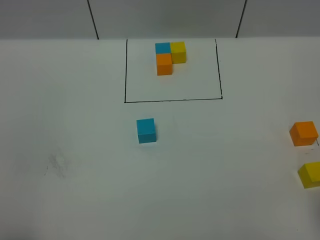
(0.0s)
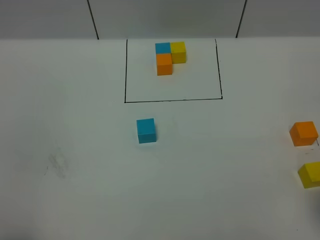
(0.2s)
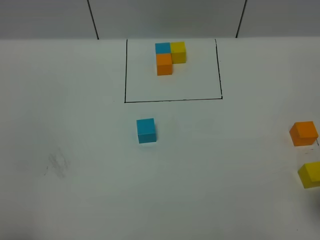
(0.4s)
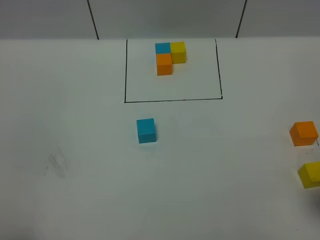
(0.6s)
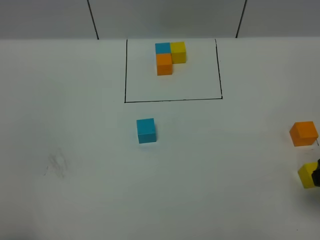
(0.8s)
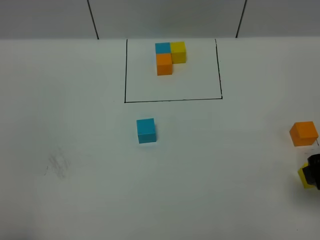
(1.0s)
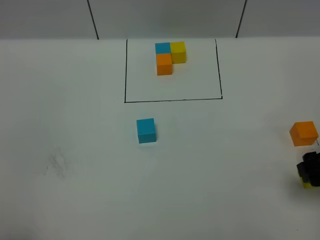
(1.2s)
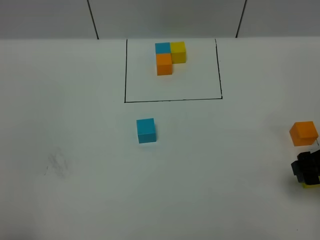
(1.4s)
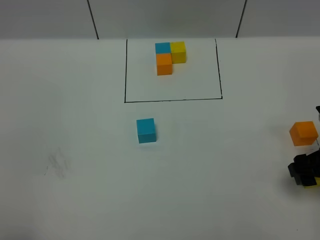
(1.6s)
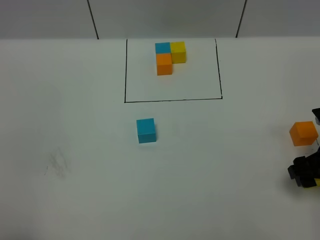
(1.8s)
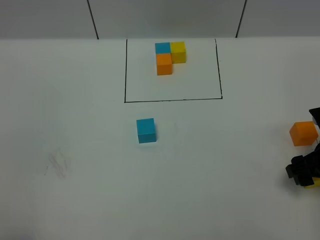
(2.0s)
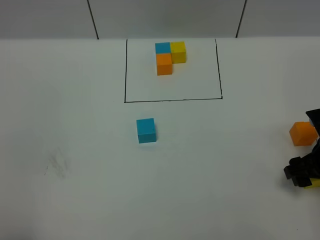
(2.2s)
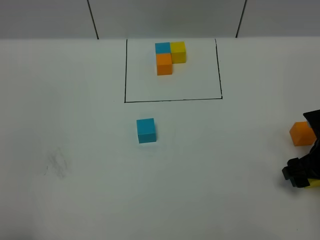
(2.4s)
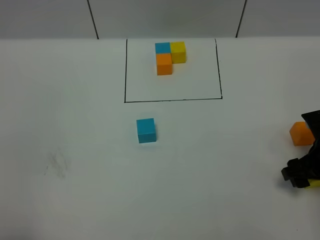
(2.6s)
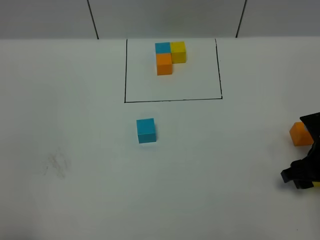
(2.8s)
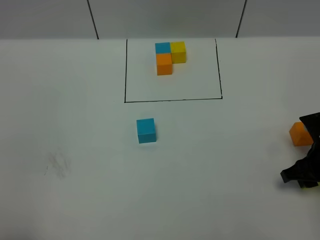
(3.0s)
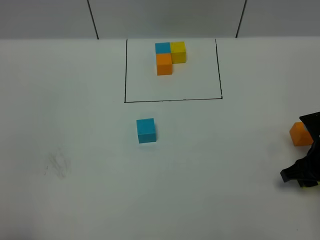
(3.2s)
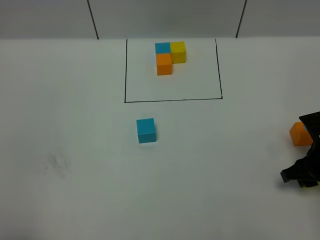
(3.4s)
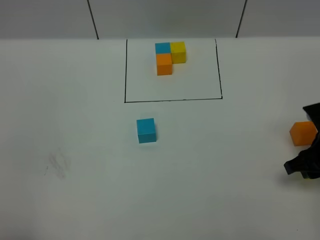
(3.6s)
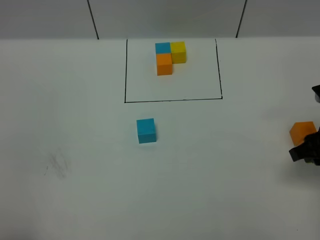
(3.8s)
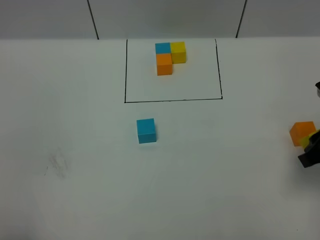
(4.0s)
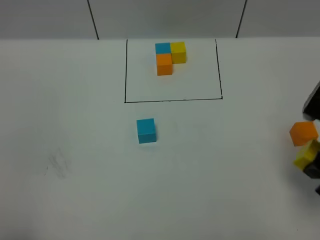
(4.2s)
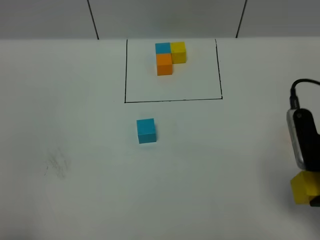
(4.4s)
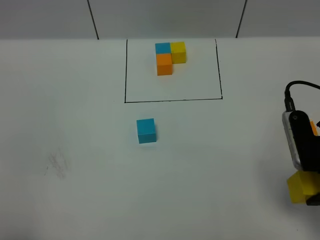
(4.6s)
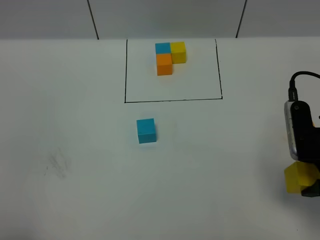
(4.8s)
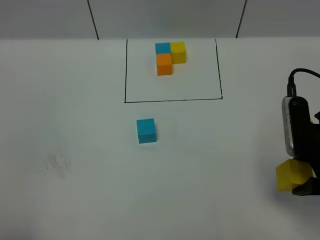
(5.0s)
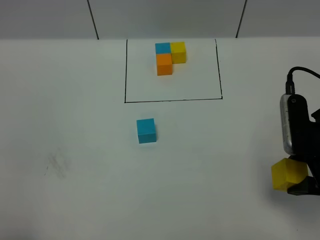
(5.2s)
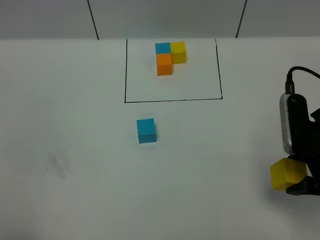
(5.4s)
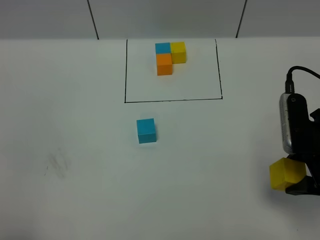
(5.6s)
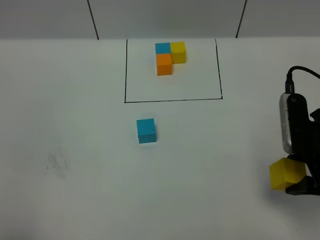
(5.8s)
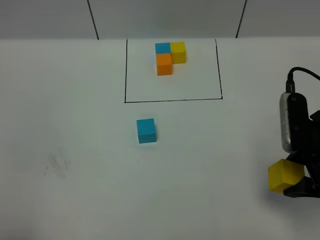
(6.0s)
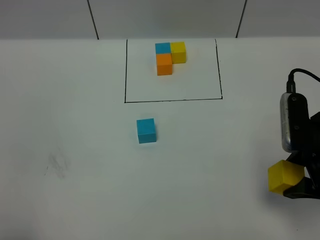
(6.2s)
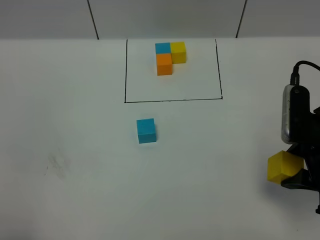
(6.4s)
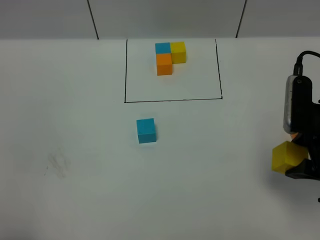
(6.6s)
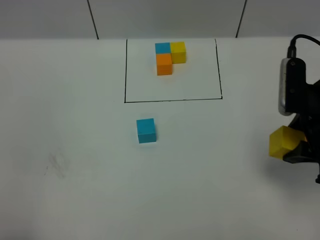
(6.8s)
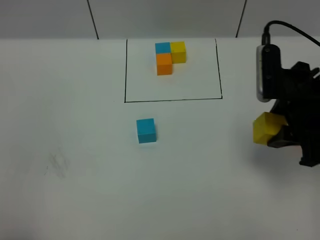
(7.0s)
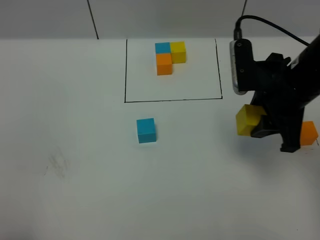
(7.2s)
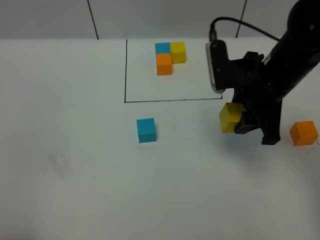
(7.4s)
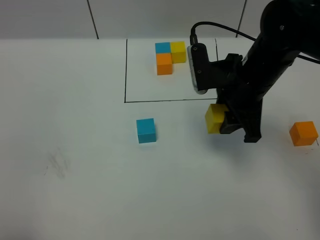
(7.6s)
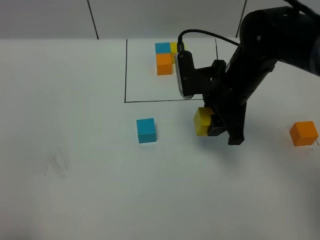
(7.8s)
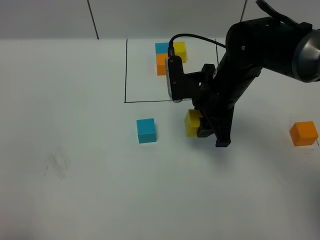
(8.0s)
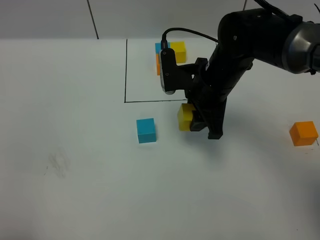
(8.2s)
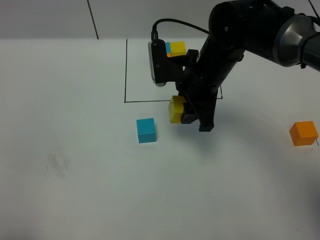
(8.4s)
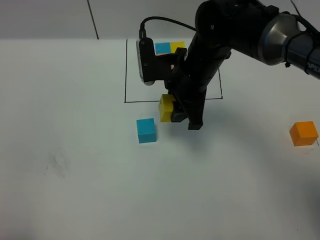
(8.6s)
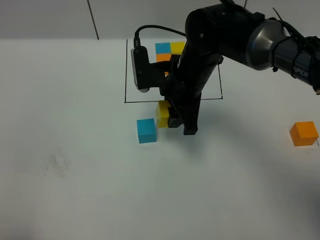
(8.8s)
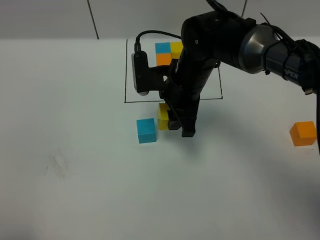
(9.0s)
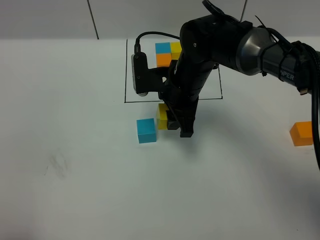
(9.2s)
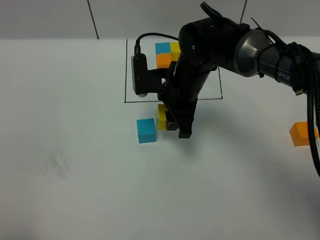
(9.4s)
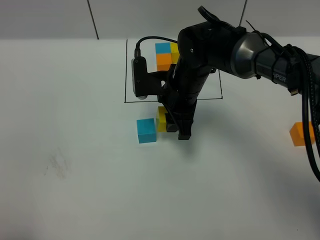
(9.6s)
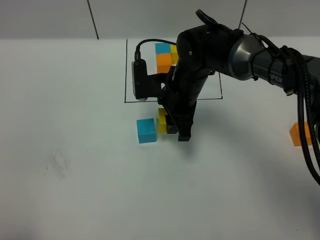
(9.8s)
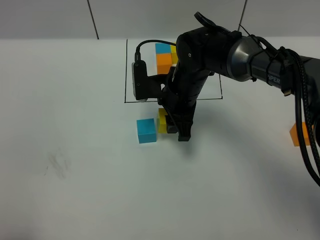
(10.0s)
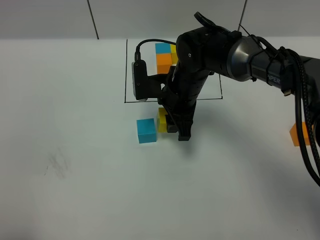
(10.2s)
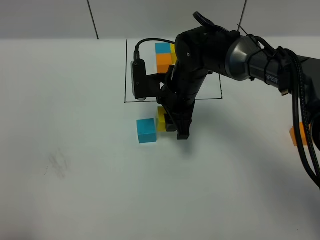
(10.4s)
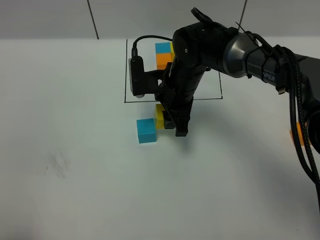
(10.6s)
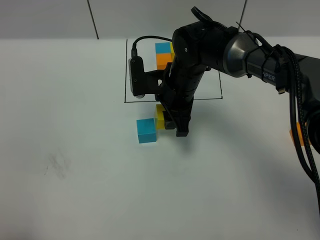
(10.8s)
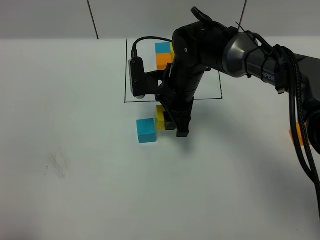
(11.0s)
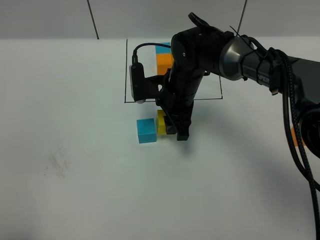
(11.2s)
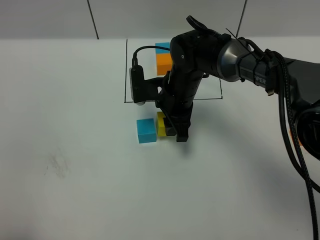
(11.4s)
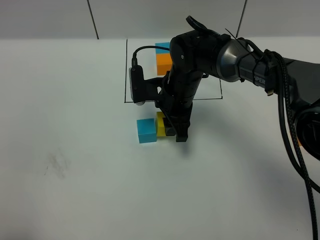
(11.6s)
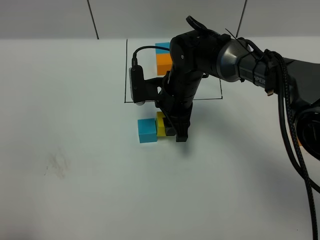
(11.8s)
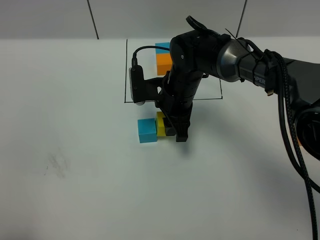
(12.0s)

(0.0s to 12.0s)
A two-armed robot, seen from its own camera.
Task of the whole recording: According to the building block template in front, assemble the scattered blocks together.
0.0s - 1.6s: The right gripper shifts about 15 cm downward and forward.
1.6s - 3.0s: The right gripper shifts by approximately 5 cm, and closes its fingers.
3.0s - 4.4s: The right gripper moves upward and backward, some 15 cm.
4.4s - 6.0s: There are only small adjustments of the grippers.
6.0s - 7.6s: The right gripper travels forward and to the left by approximately 15 cm.
7.6s - 9.0s: The right gripper is displaced to the left by approximately 10 cm.
9.0s - 12.0s: The grippers stay close to where they were, moving slightly.

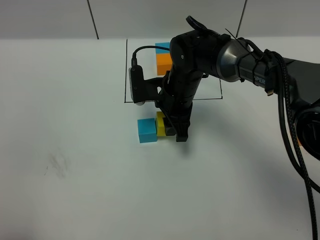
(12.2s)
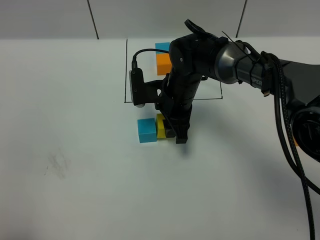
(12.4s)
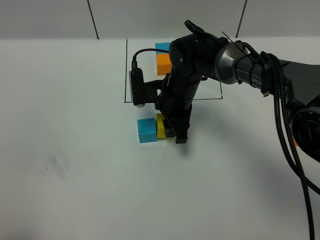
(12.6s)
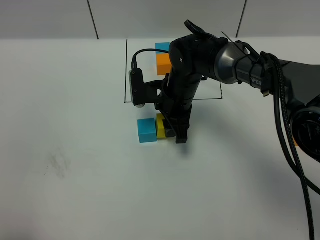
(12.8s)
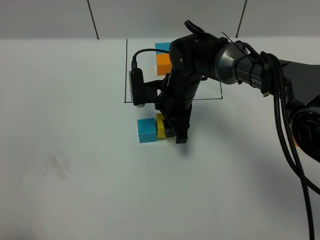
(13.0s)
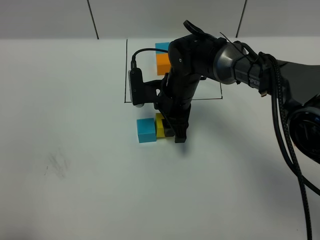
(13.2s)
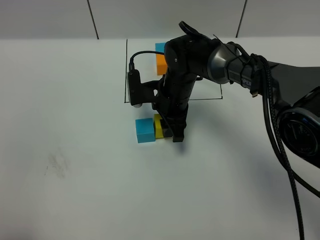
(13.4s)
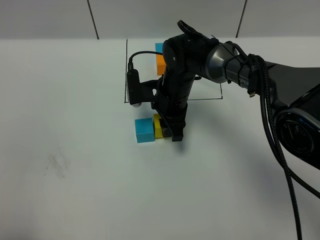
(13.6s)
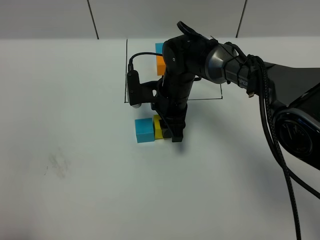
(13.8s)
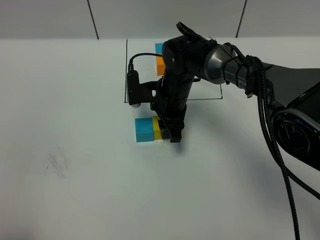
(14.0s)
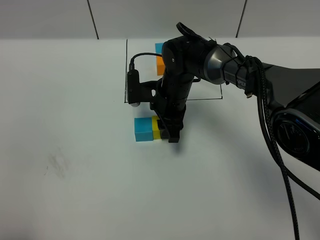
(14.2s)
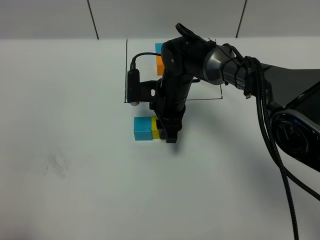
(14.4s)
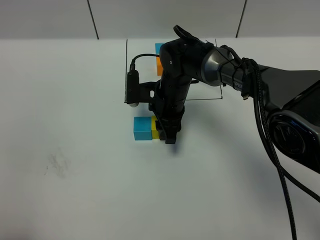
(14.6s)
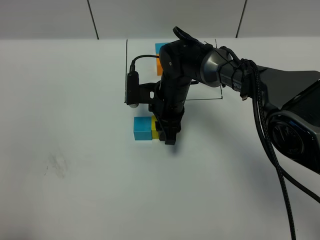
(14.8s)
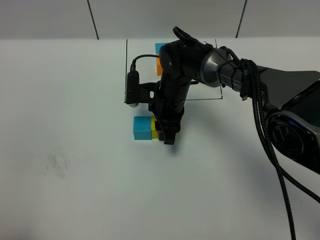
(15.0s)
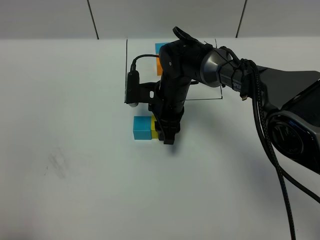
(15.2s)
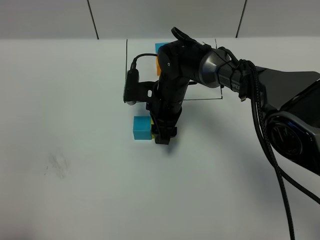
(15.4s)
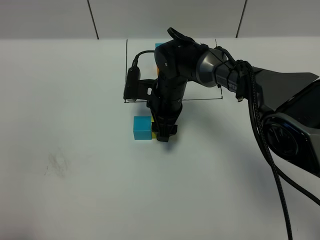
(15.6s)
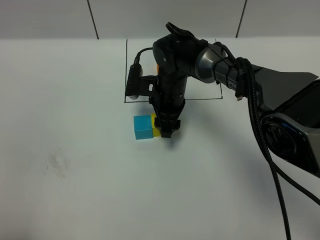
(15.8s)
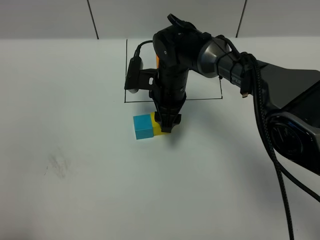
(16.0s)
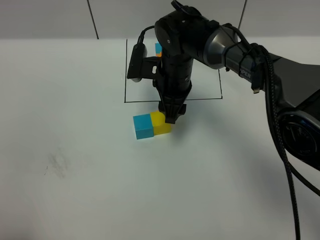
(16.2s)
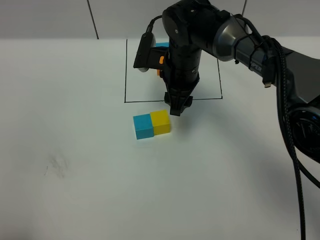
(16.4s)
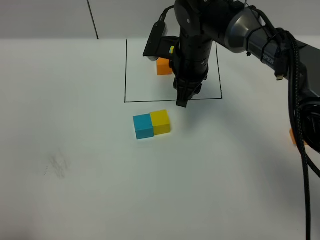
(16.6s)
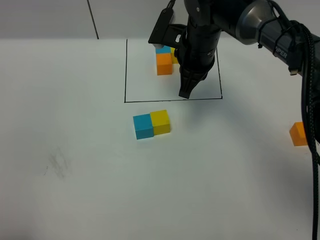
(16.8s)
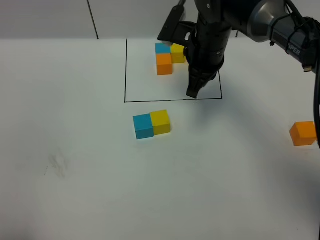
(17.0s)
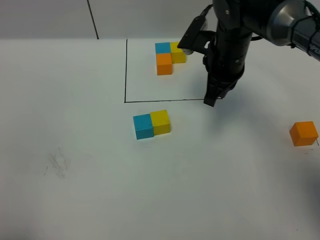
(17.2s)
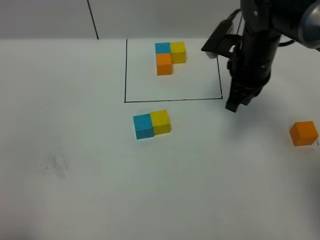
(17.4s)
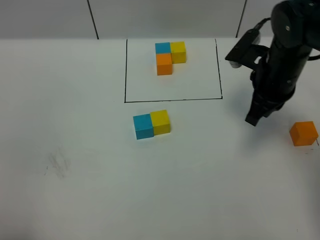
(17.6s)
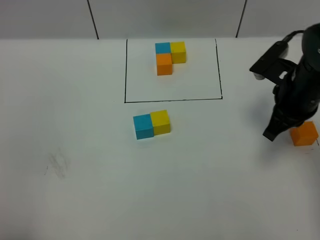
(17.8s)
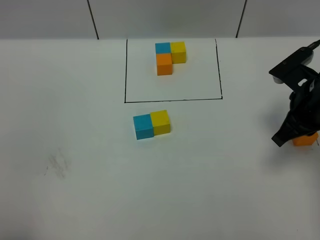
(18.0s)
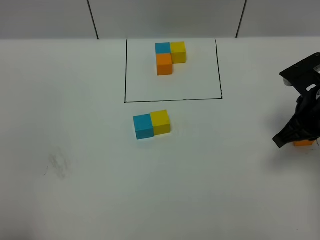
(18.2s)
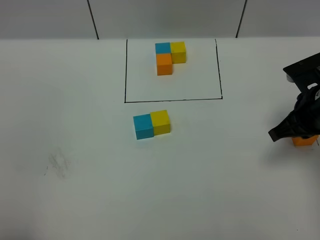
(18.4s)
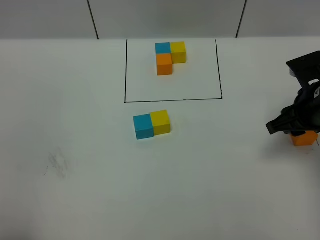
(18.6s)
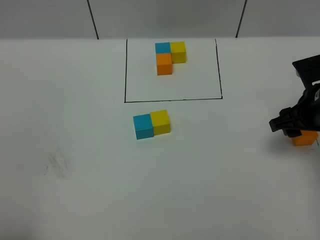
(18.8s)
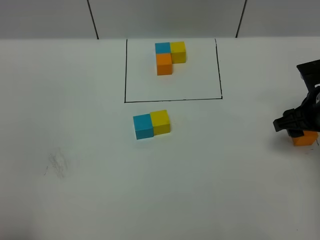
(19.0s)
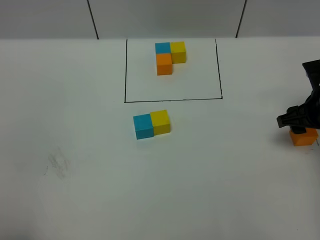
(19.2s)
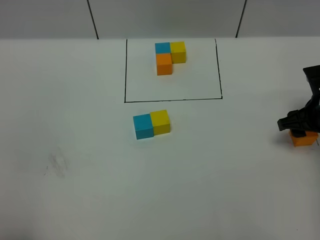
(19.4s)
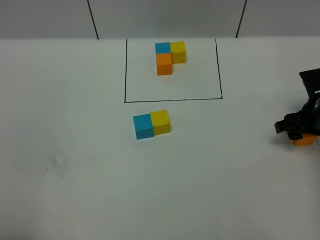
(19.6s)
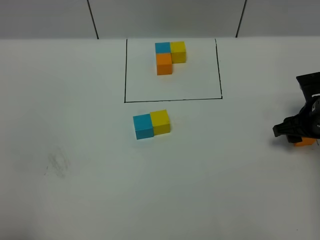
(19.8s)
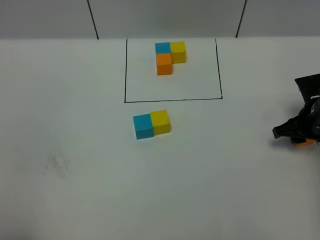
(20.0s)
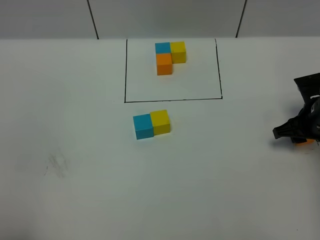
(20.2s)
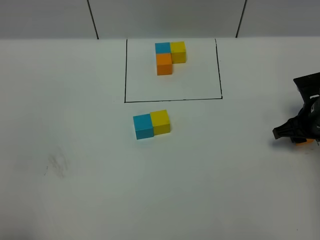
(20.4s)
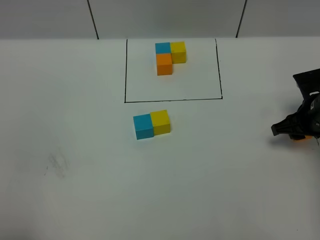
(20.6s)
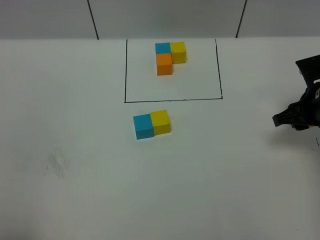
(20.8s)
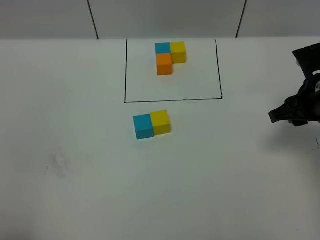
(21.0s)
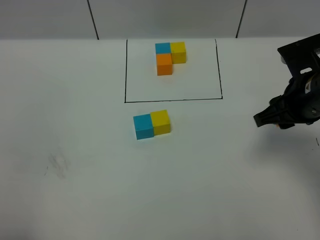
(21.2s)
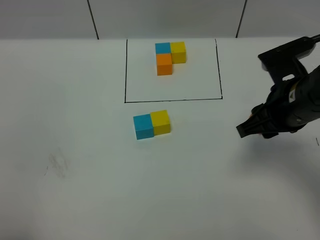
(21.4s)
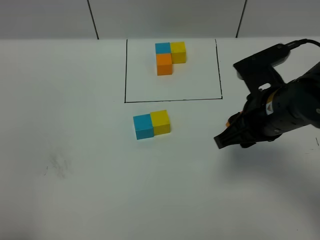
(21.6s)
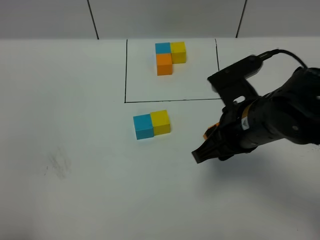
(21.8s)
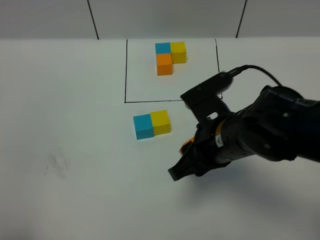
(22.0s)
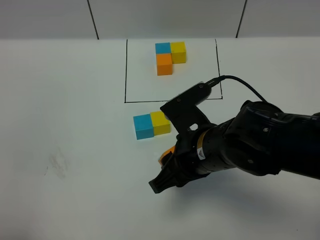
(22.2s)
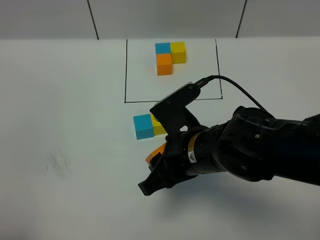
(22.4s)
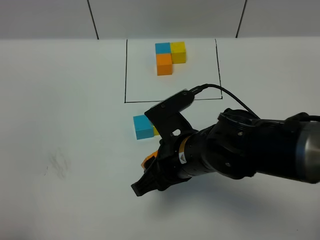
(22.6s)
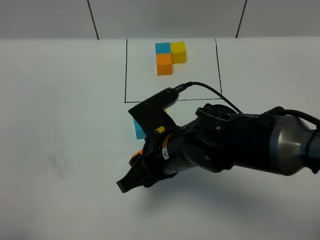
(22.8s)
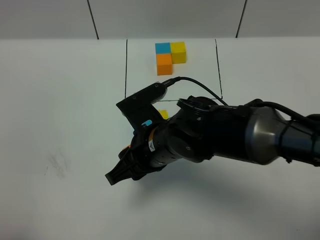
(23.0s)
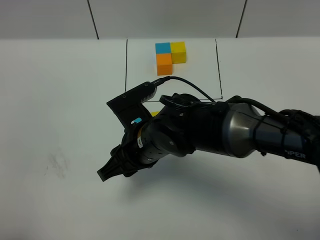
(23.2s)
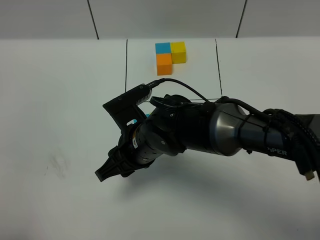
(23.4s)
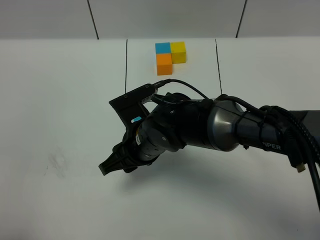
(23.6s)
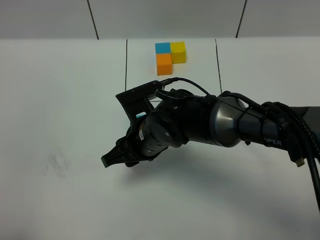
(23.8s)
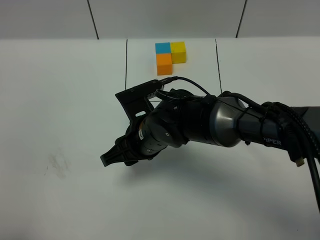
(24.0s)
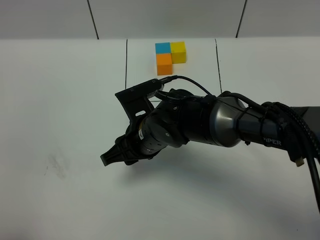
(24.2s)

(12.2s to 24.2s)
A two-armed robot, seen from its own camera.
Task of the whole recording: According to the building block template in front, assemble the scattered blocks together.
Step, 12.2s - 16.4s: Put the yellow cube on the right of the blue cube.
12.2s - 15.2s: There are only small adjustments of the grippers.
15.2s - 16.6s: The right gripper shifts approximately 10 cm upward.
16.6s - 18.2s: The right gripper is displaced to the right and backward by some 25 cm.
18.2s - 19.8s: The right gripper is displaced downward by about 10 cm, and opens its fingers.
19.8s - 21.2s: The right gripper travels upward, to the left and backward by about 15 cm.
21.2s - 22.6s: The right gripper travels to the left by approximately 20 cm.
22.6s - 24.2s: The right gripper is displaced forward and to the left by some 10 cm.
